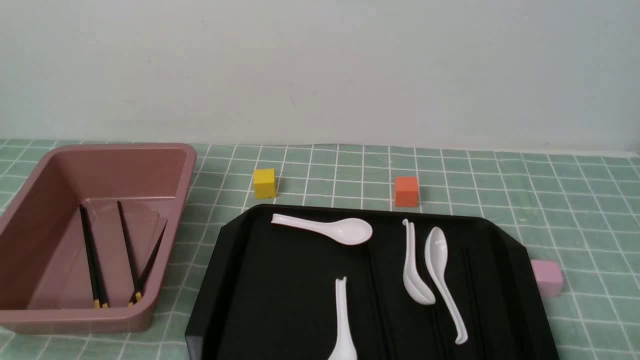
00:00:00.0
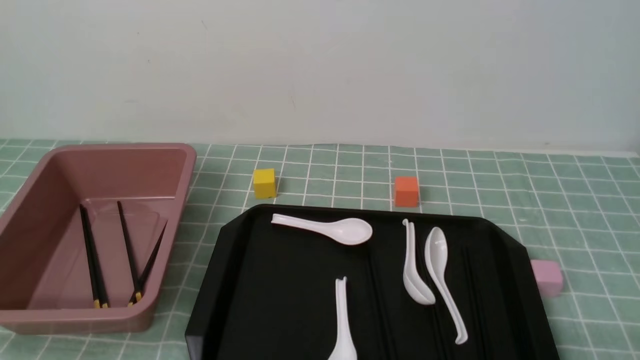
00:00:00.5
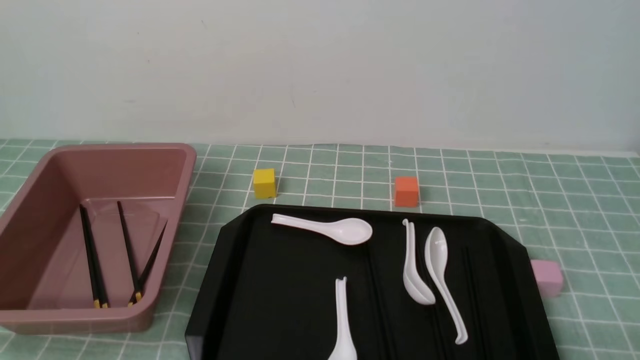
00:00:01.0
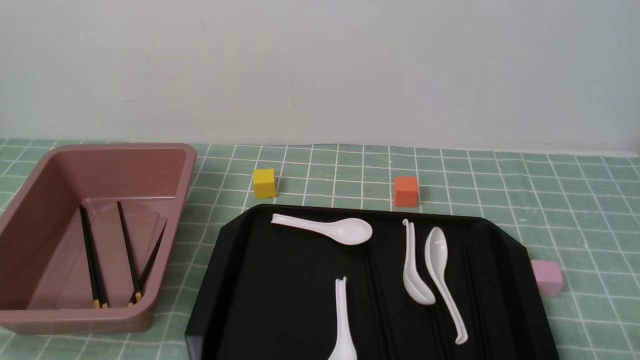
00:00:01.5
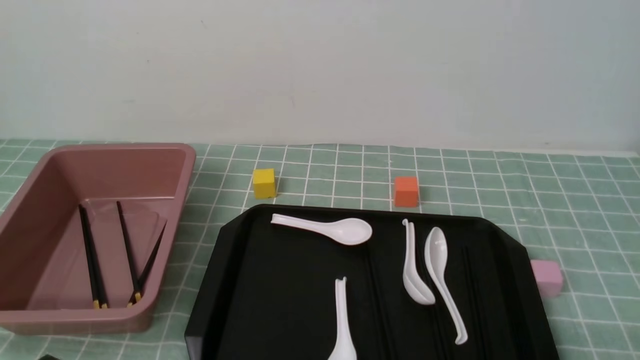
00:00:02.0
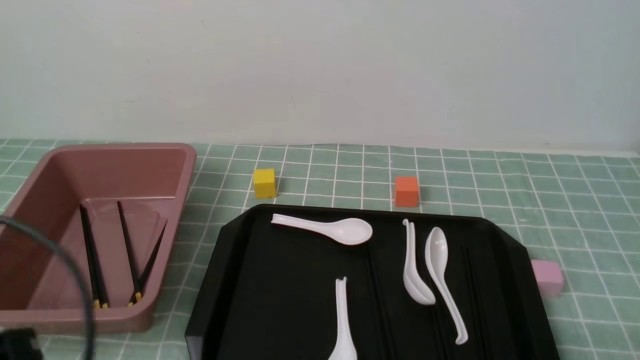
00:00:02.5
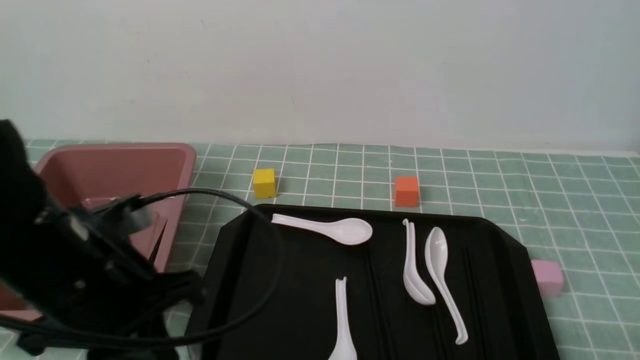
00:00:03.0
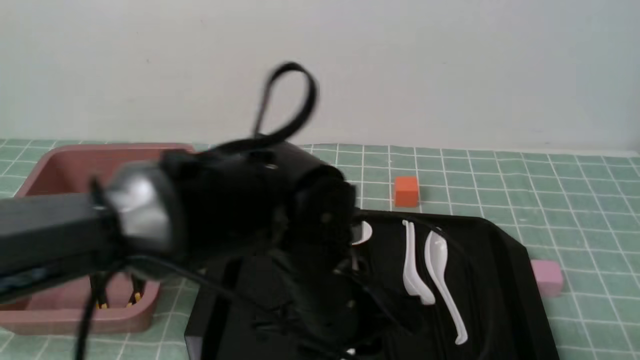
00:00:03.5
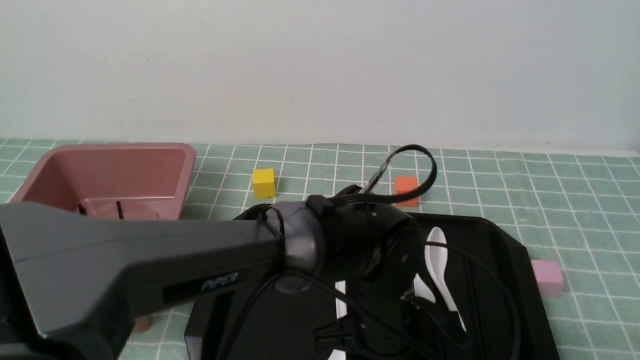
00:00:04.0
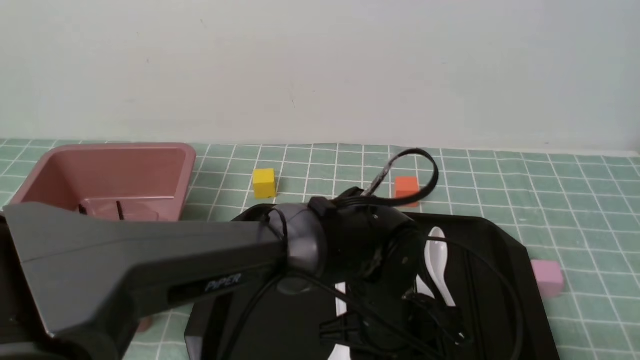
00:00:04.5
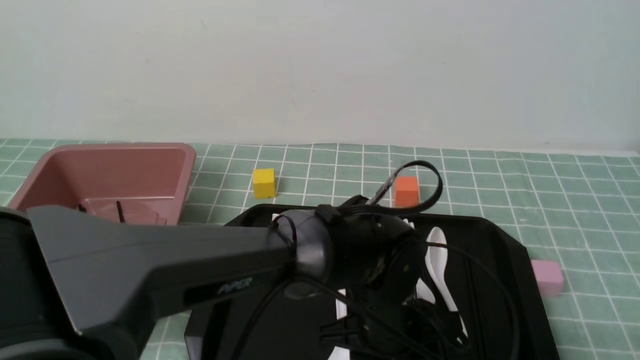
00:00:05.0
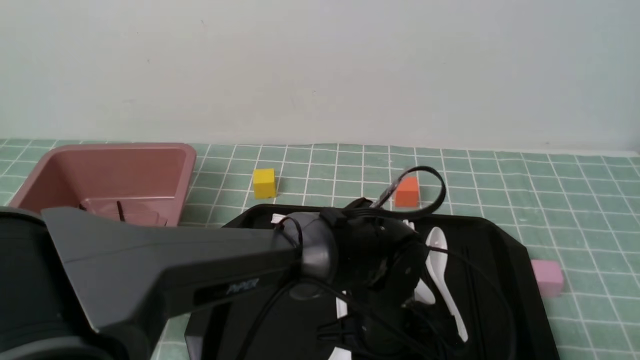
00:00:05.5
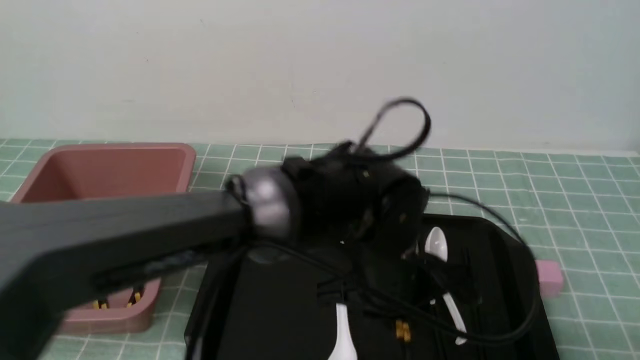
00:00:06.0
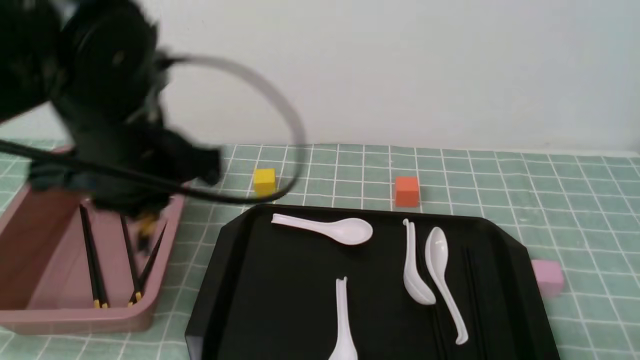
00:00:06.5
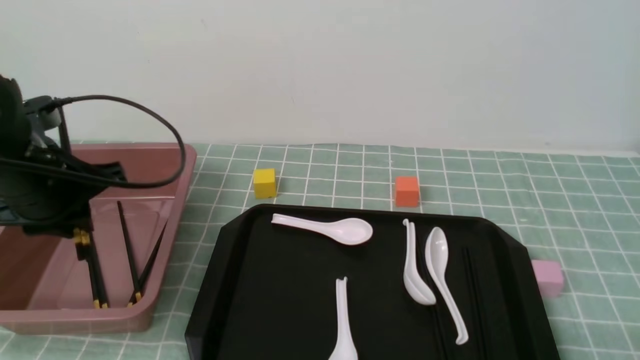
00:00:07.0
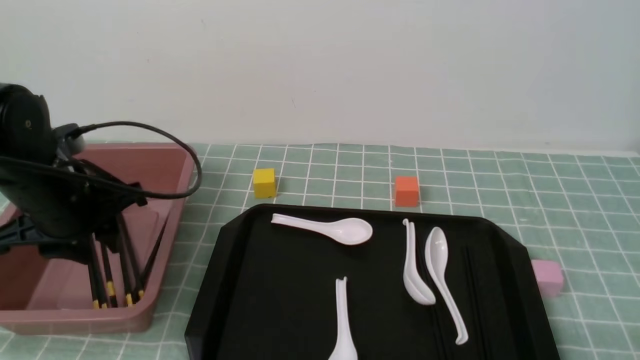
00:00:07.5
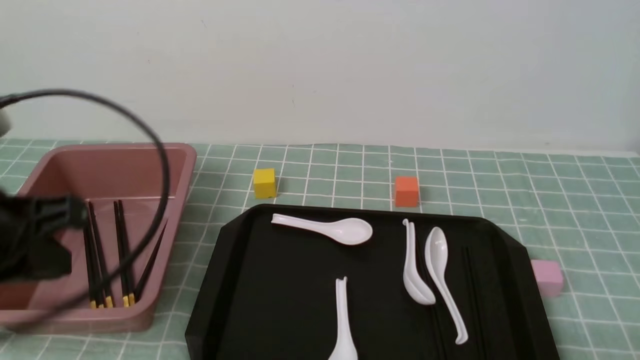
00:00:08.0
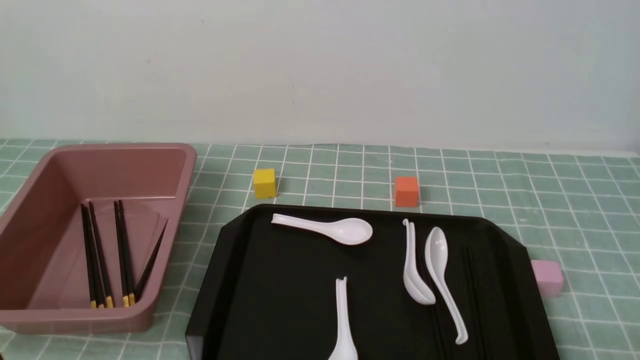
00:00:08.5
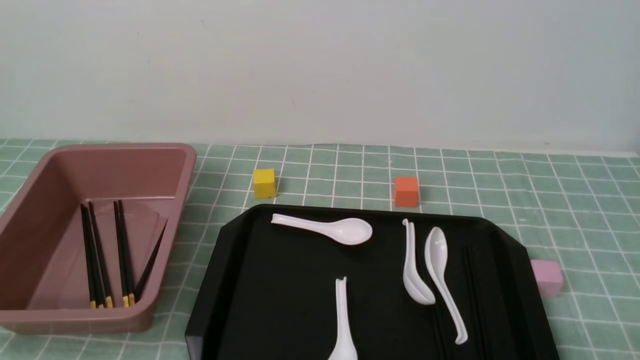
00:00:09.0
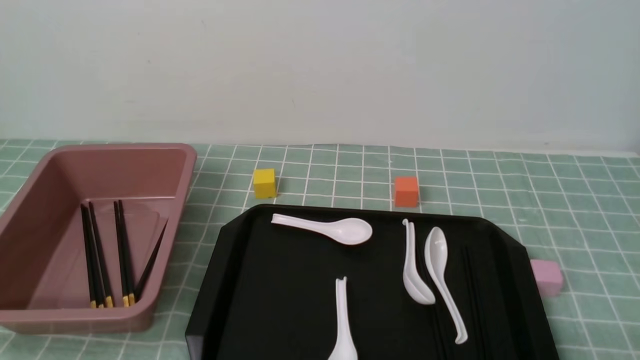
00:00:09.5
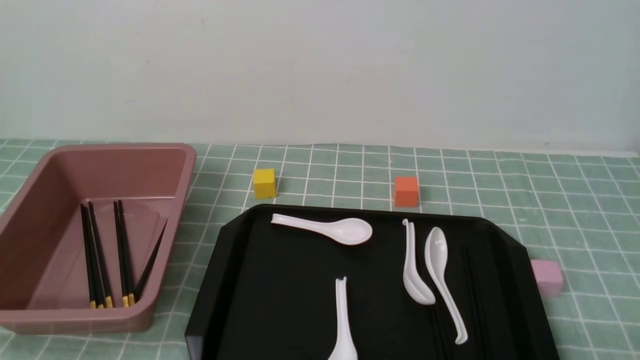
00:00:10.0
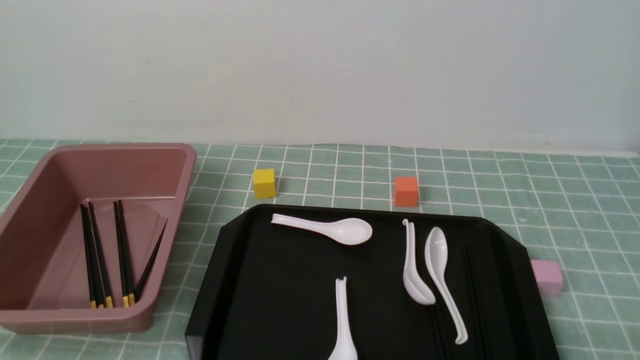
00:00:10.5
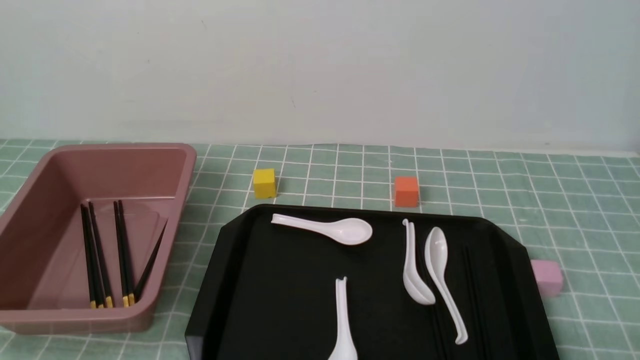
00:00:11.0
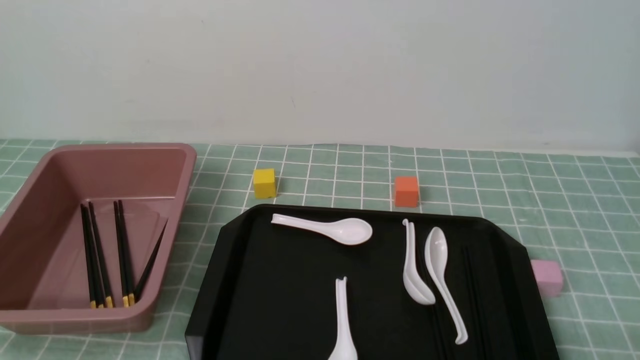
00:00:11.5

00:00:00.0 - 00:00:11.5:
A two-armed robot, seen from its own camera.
Step, 00:00:00.0 - 00:00:06.0: use the left arm to grab a pair of chopsticks.
Step, 00:00:06.5 - 00:00:07.5: use the left arm to put the chopsticks into the lunch box.
00:00:02.0 - 00:00:04.0: The left gripper moves to the right and forward, roughly 35 cm, and opens up.
00:00:04.0 - 00:00:06.0: The left gripper moves upward, roughly 5 cm, and closes.
00:00:06.0 - 00:00:07.5: The left gripper heads to the left, covering about 30 cm.
00:00:07.5 - 00:00:09.5: The left gripper is displaced backward by some 25 cm, and closes.
00:00:09.5 - 00:00:11.5: Both grippers stay put.
